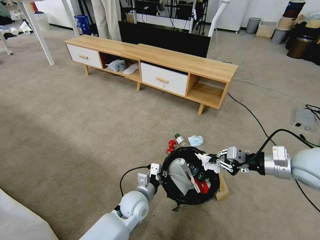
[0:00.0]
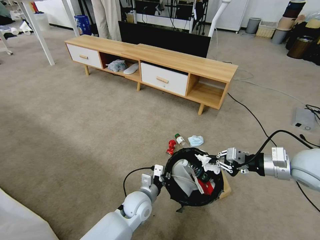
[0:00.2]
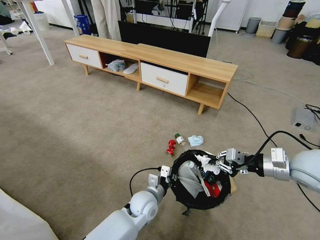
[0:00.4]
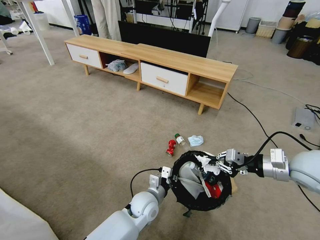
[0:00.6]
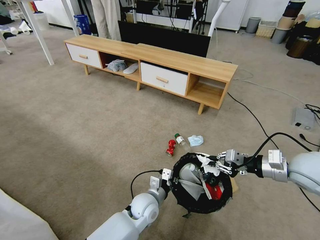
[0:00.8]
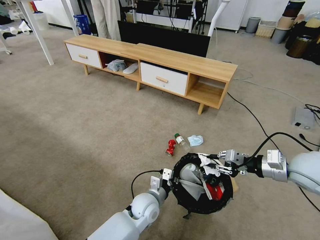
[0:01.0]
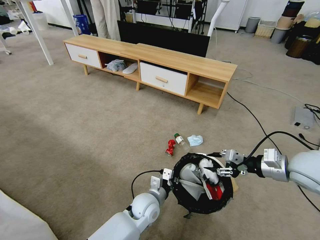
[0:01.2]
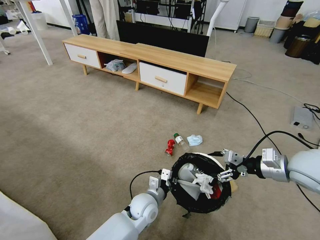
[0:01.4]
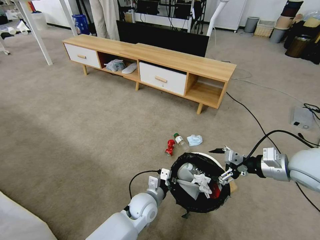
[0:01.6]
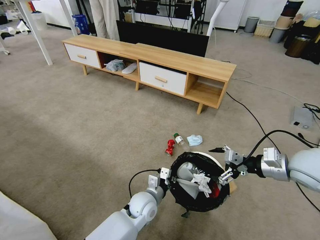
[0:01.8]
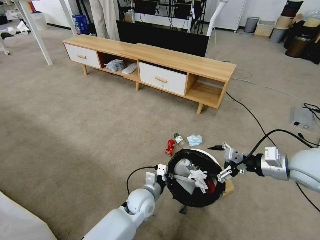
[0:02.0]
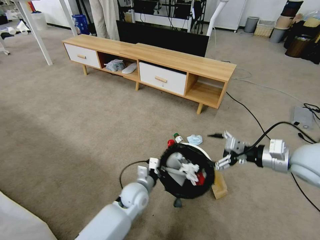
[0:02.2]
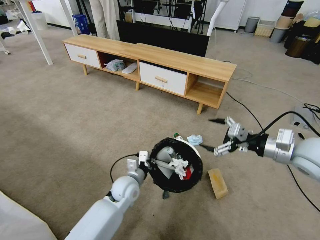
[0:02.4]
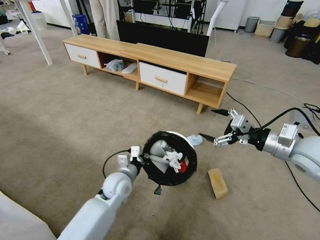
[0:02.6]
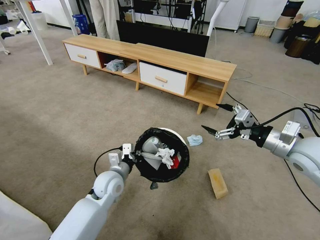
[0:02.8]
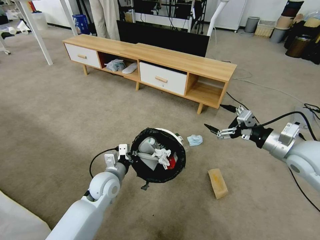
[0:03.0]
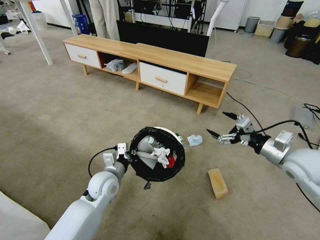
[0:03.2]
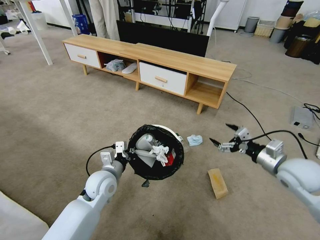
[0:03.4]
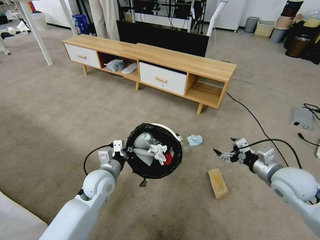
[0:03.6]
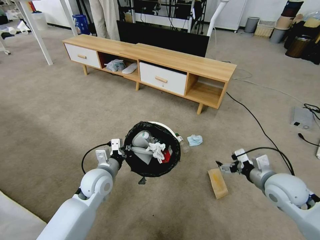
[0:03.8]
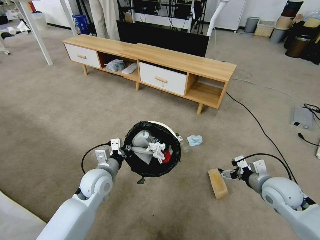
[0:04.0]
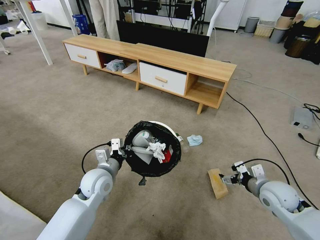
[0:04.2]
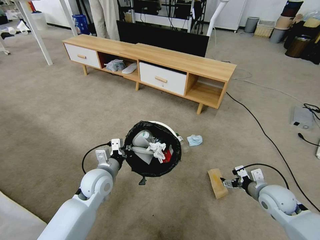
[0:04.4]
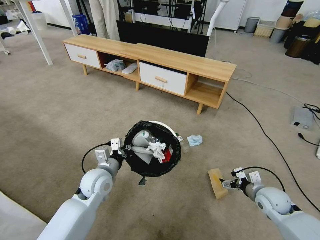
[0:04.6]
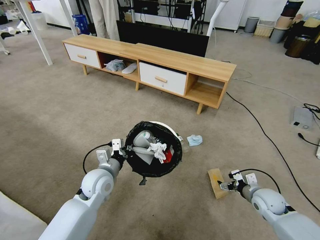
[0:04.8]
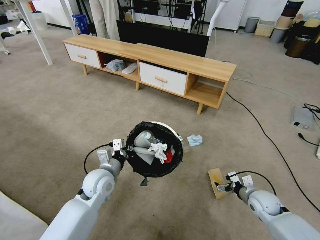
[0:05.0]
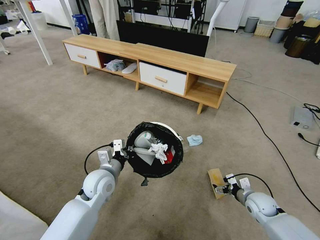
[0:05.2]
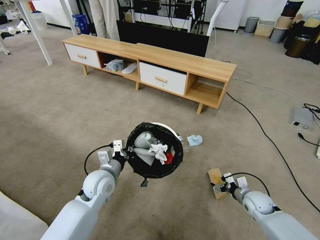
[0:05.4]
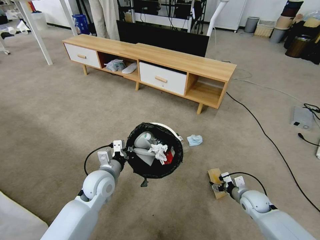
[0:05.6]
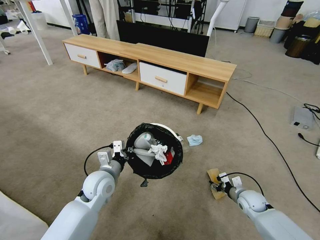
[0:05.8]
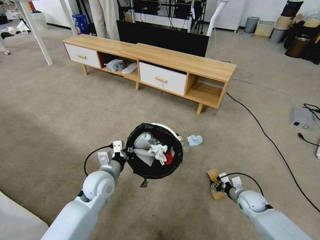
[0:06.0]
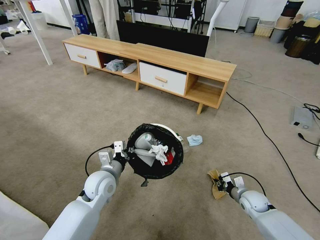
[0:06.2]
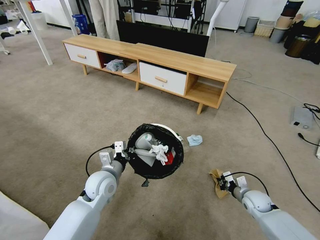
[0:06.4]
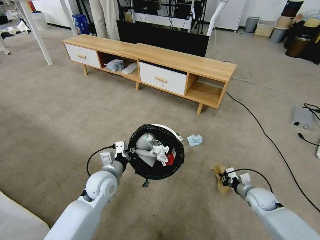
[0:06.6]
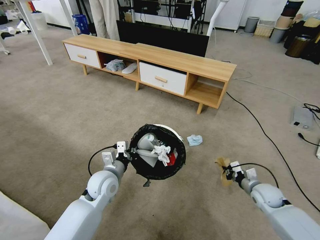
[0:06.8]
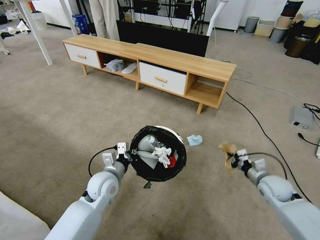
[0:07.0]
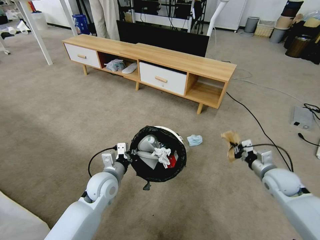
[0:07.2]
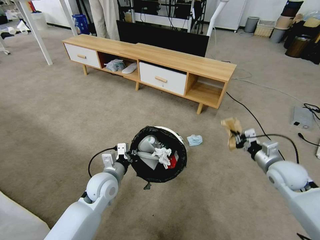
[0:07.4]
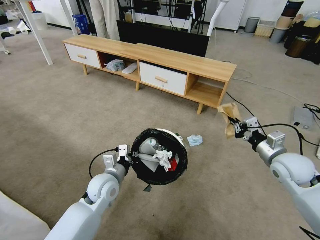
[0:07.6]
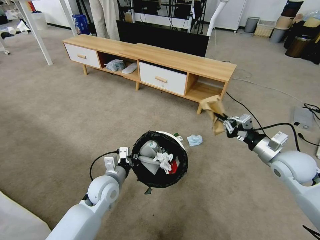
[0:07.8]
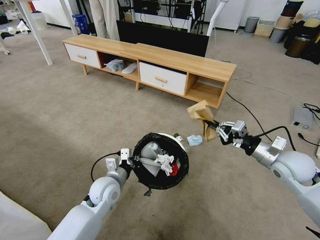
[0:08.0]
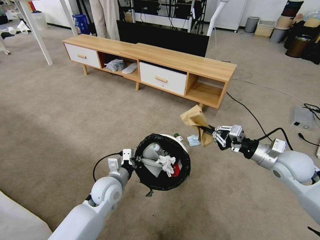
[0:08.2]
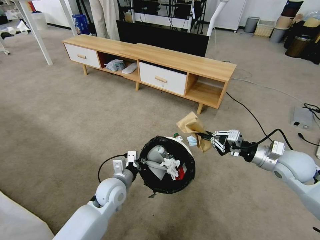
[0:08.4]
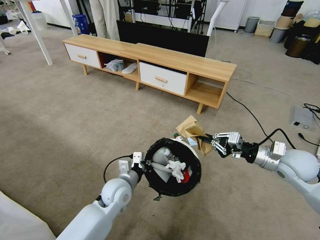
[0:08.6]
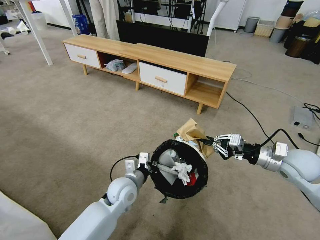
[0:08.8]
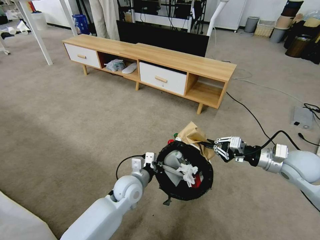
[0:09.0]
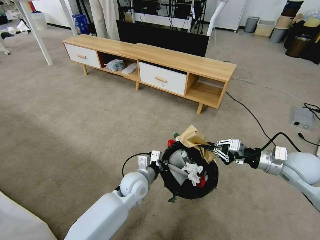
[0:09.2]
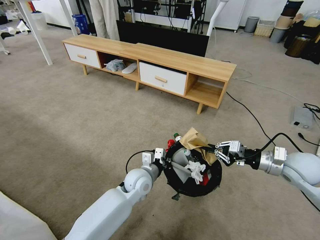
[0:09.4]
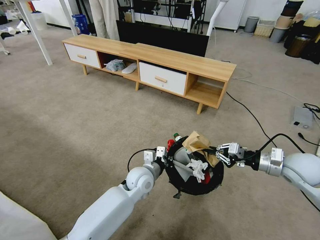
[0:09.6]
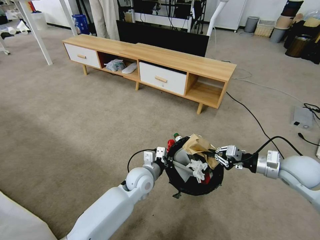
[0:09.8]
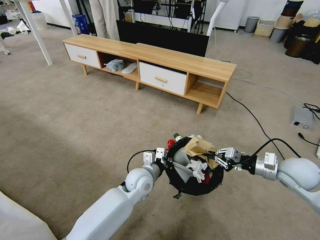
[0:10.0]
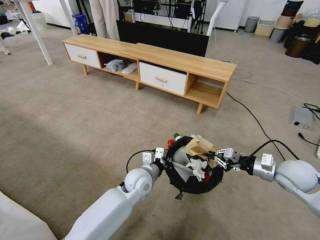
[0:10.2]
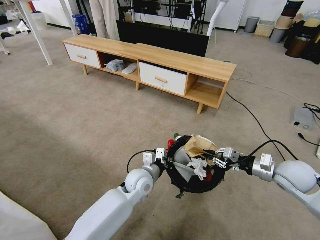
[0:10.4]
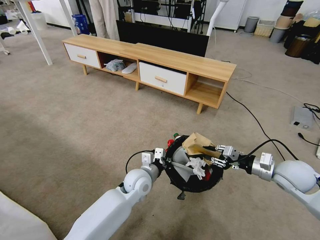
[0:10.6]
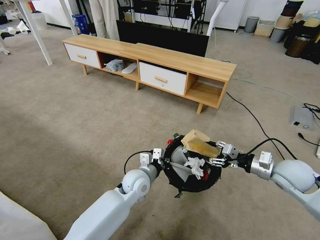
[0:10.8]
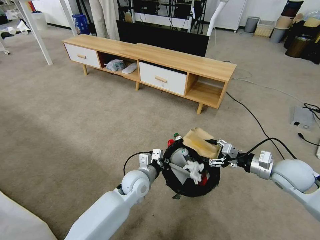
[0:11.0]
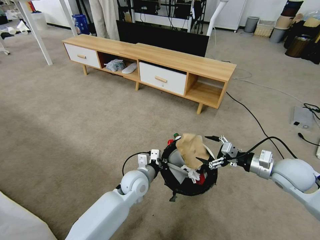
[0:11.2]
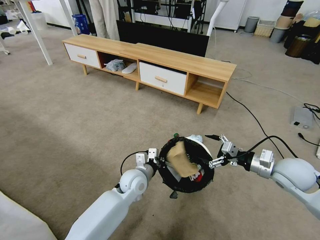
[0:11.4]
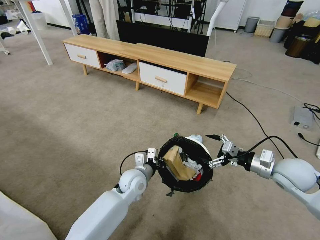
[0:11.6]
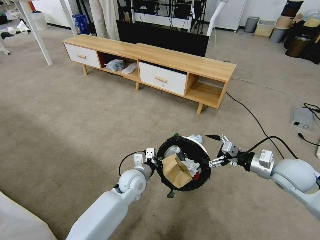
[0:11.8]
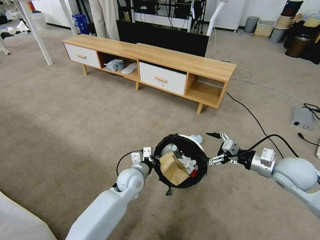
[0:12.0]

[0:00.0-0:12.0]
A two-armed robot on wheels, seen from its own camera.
Task of the whole recording: Pick up the trash bin and place the garbage on the floor into it.
0:00.0 to 0:01.6: The left gripper closes up. Meanwhile the right gripper opens.
0:01.6 to 0:03.0: The left gripper travels to the left and upward by some 15 cm, and closes.
0:03.0 to 0:04.4: The right gripper shifts approximately 20 cm downward.
0:04.4 to 0:06.0: The right gripper is displaced downward by some 15 cm, and closes its fingers.
0:06.0 to 0:07.6: The right gripper heads upward, covering approximately 25 cm, and closes up.
0:07.6 to 0:09.0: The left gripper travels to the right by roughly 10 cm.
0:09.0 to 0:10.4: The grippers stay close to where they were, moving slightly.
0:10.4 to 0:12.0: The right gripper opens.

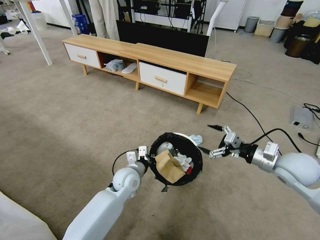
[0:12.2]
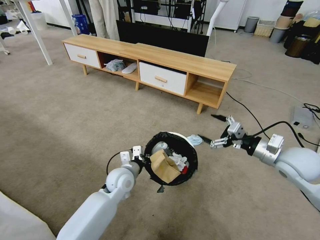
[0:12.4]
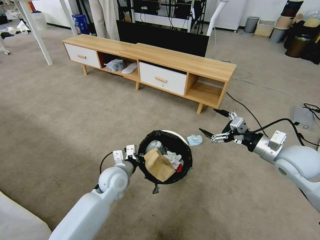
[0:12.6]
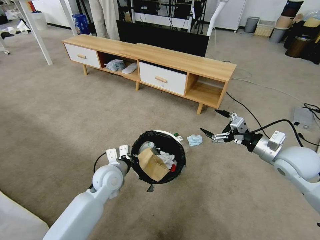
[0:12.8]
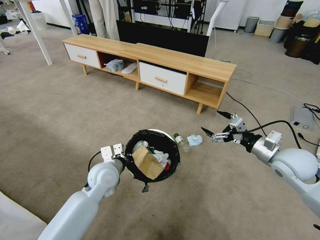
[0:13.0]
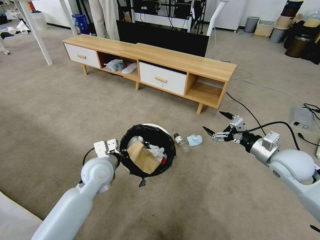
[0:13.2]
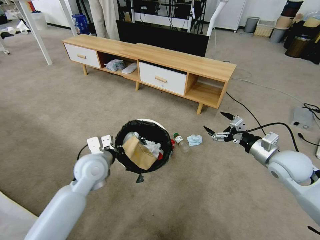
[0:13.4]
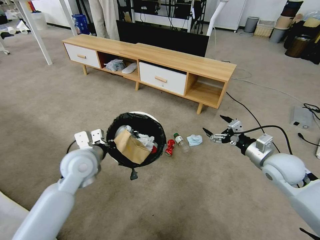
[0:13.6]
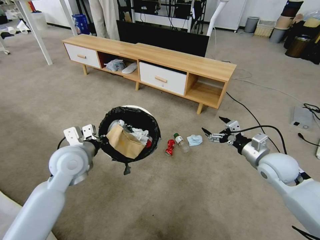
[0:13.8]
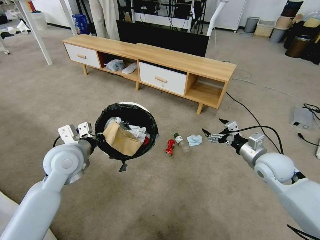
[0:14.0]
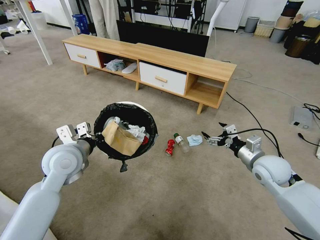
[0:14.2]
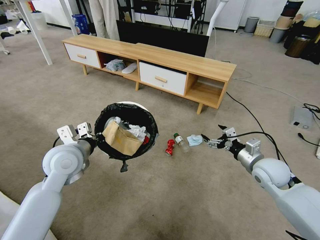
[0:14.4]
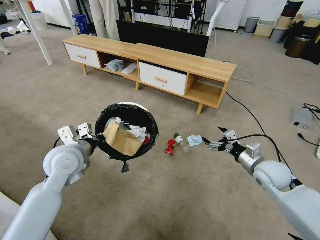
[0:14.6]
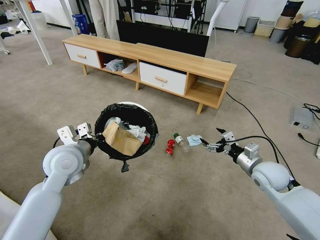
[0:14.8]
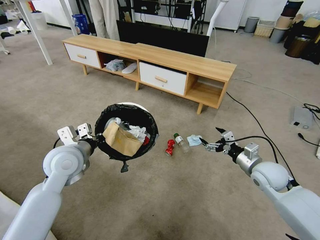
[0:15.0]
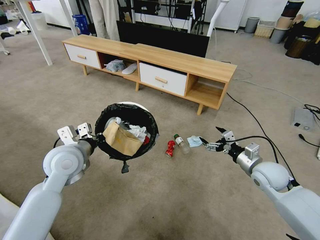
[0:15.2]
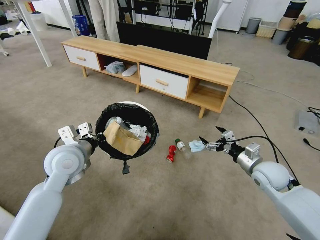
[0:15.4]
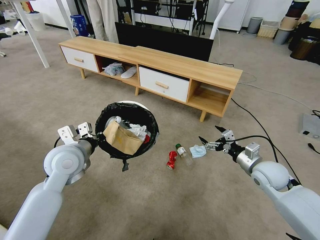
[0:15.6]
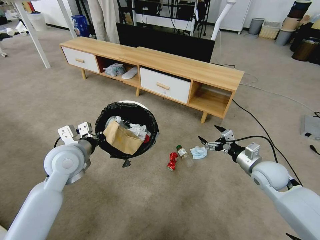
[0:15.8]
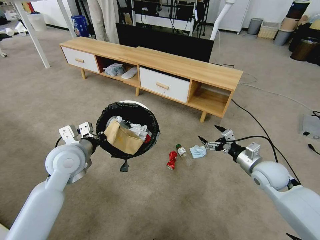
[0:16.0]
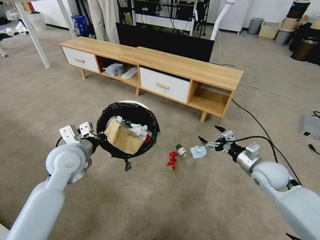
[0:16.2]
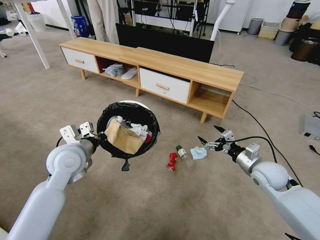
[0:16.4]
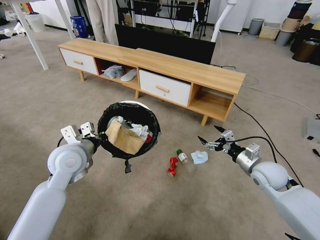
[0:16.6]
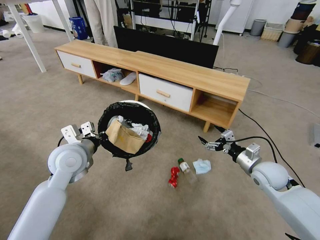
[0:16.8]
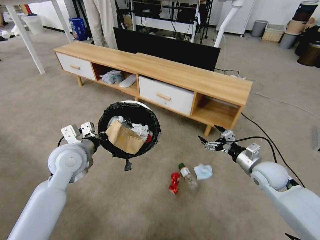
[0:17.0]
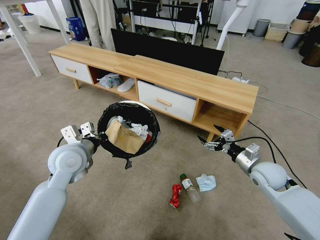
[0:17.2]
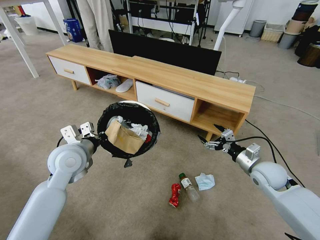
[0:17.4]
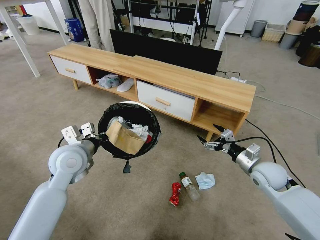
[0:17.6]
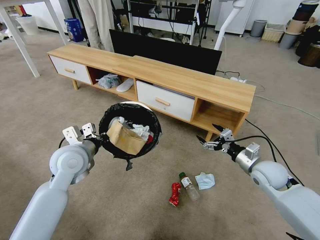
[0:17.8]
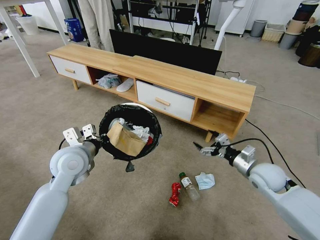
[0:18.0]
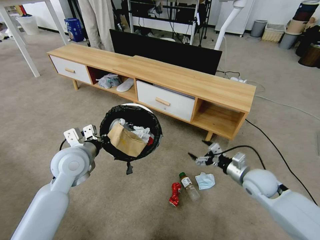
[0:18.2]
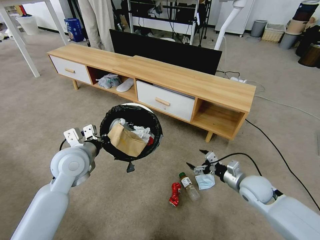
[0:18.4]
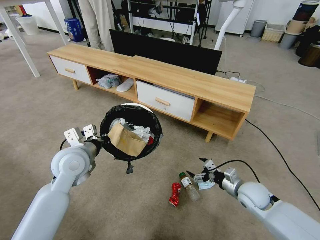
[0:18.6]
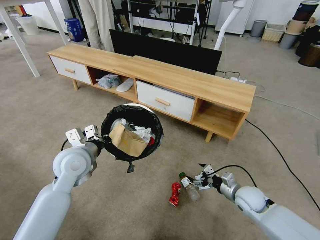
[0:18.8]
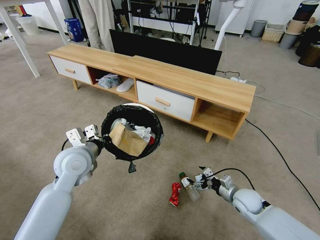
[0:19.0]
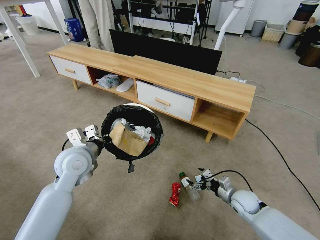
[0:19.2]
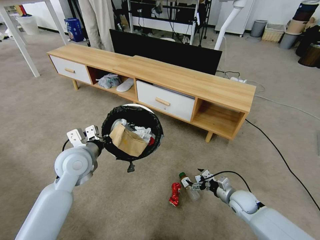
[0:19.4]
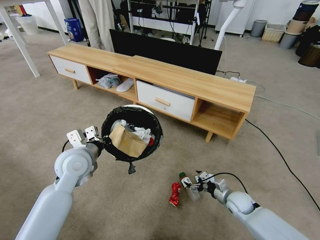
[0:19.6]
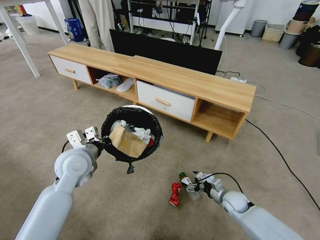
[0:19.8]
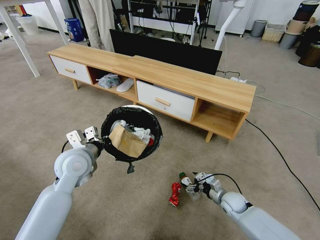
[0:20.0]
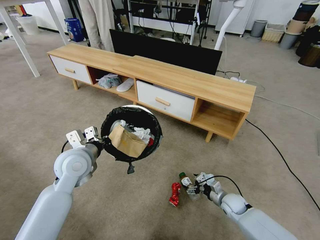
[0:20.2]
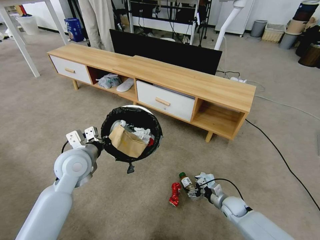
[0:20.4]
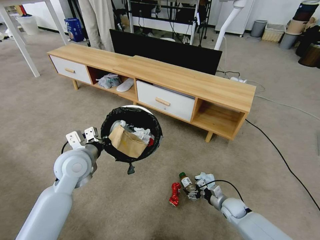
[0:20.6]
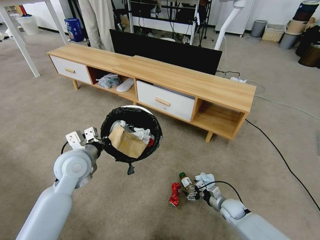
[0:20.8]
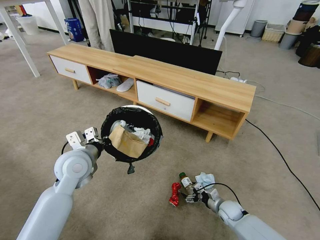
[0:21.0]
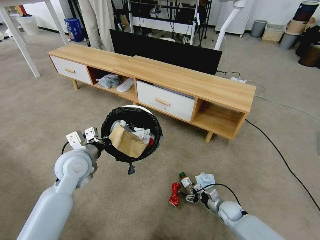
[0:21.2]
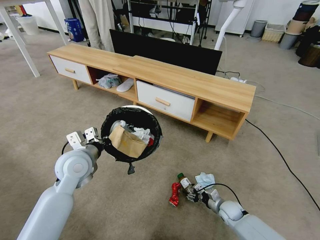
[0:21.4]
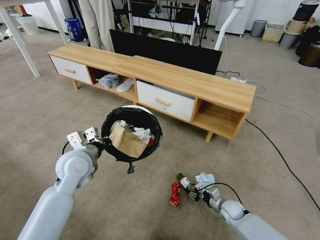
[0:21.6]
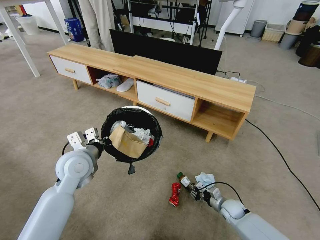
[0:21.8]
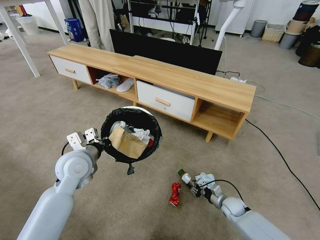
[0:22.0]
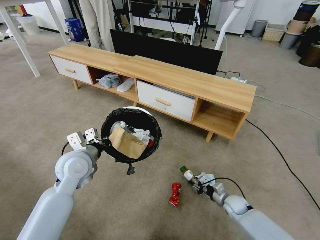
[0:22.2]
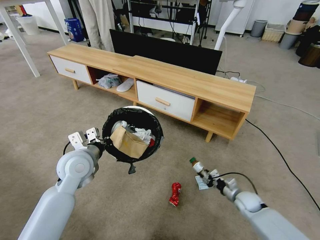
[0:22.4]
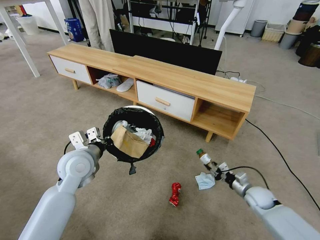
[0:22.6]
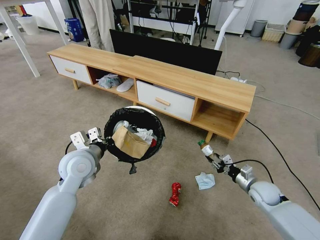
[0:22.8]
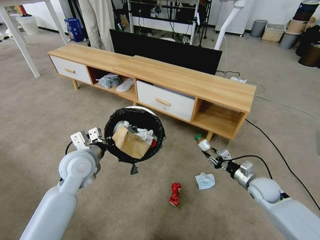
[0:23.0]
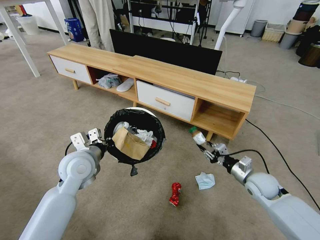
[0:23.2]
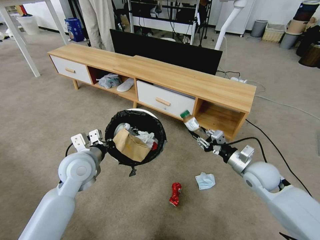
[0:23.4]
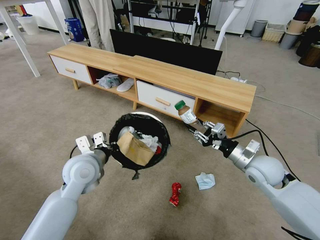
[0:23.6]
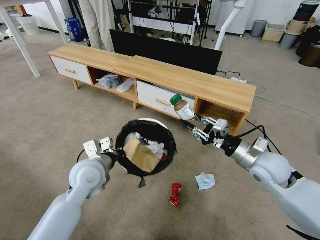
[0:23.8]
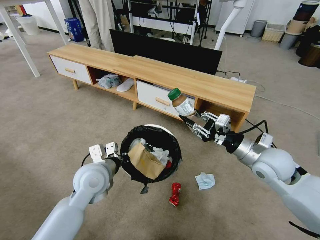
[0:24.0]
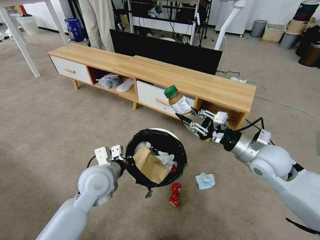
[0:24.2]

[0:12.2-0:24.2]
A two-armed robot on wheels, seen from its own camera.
Task of the whole recording: Pick up the trash bin and place the garbage on the floor into it.
0:12.2 to 0:13.8: The left gripper moves upward and to the left, some 20 cm.
0:13.8 to 0:15.2: The grippers stay close to where they were, moving slightly.
0:18.2 to 0:19.8: The right gripper travels downward by approximately 15 cm.
0:19.8 to 0:21.2: The right gripper goes approximately 5 cm downward.
0:21.2 to 0:22.6: The right gripper travels upward and to the right by approximately 10 cm, and closes its fingers.
0:22.6 to 0:24.2: The left gripper shifts approximately 5 cm to the right. The right gripper is displaced upward by some 25 cm.
